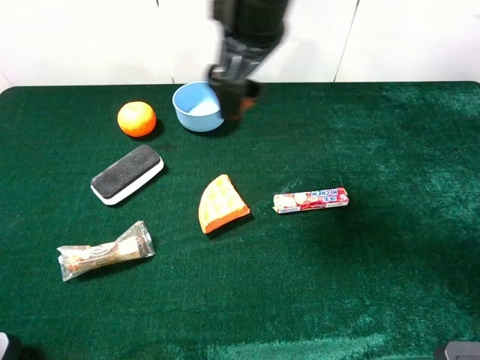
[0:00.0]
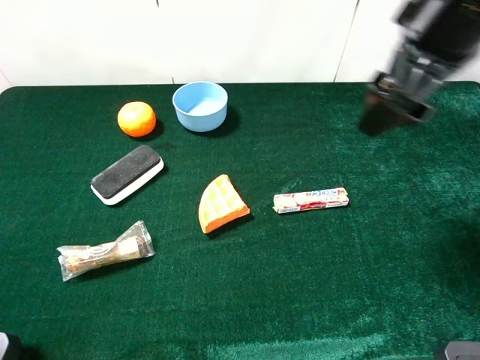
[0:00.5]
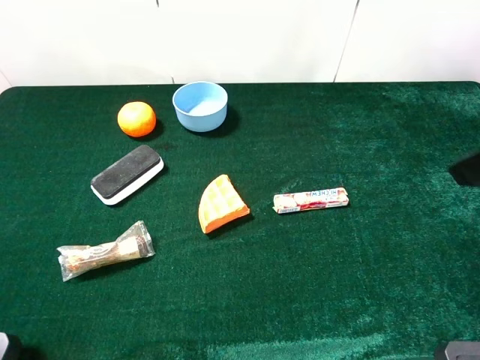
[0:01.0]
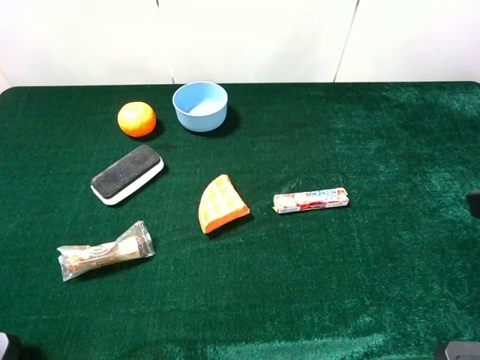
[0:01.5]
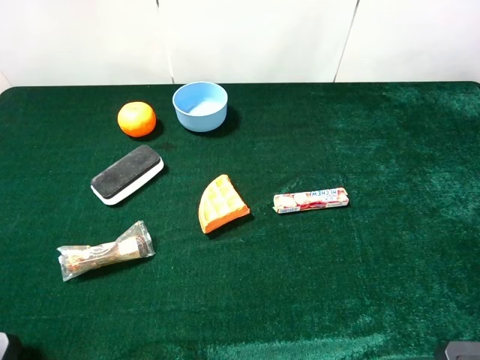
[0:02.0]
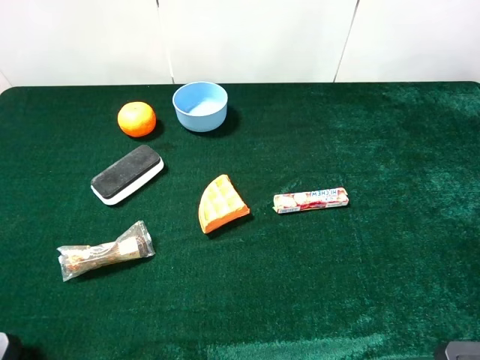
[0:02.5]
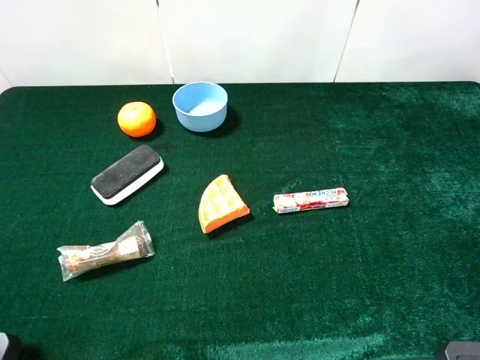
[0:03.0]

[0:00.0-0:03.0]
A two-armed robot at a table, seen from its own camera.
Task of the whole recording: the gripper move the object.
0:00.0 to 0:01.5: The right gripper is displaced to the right and backward by approximately 30 cm.
